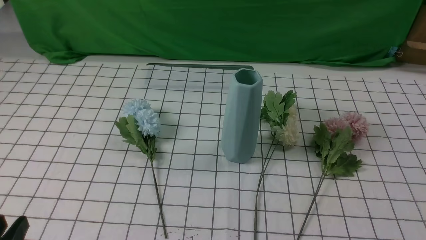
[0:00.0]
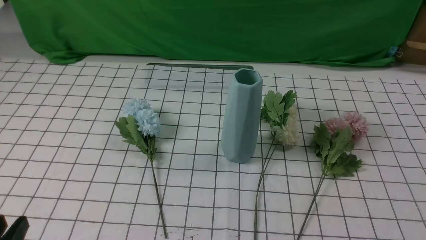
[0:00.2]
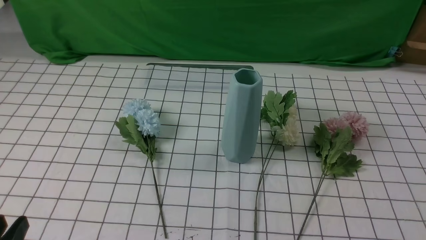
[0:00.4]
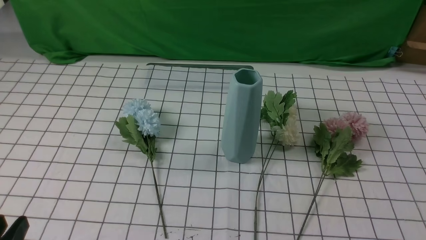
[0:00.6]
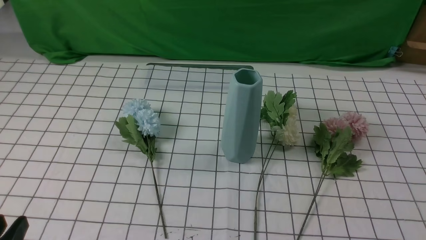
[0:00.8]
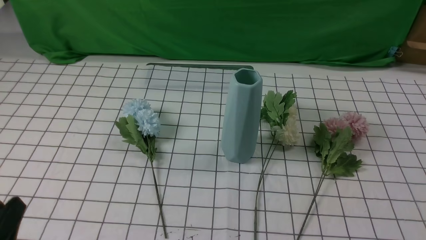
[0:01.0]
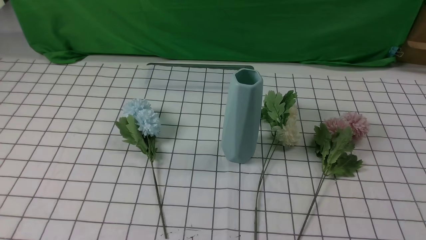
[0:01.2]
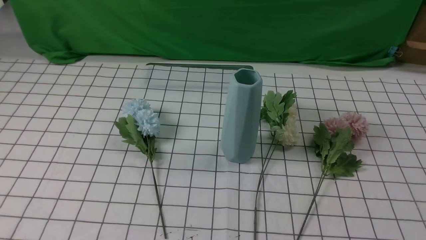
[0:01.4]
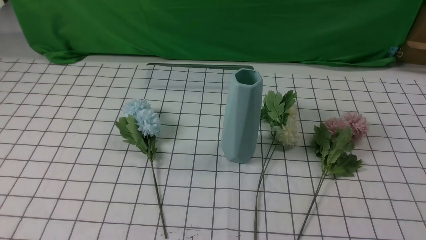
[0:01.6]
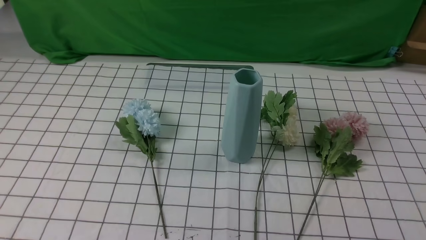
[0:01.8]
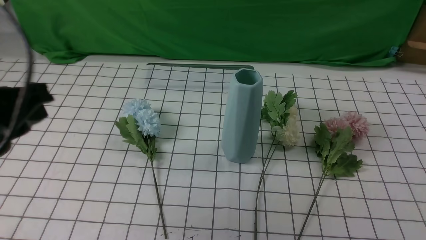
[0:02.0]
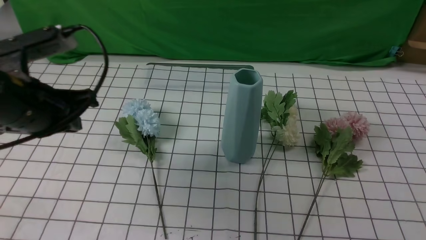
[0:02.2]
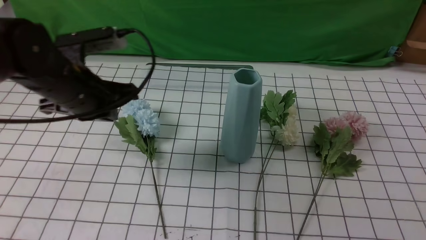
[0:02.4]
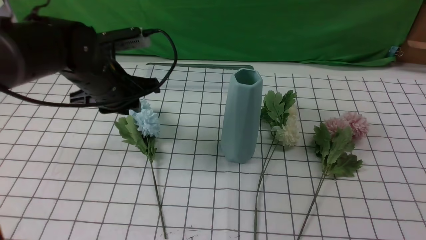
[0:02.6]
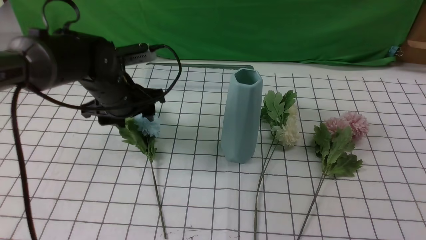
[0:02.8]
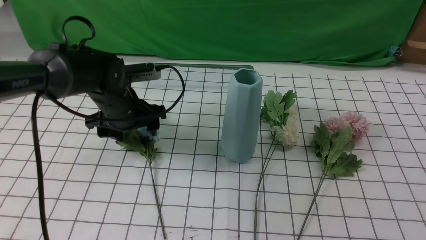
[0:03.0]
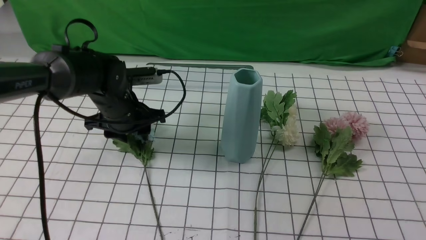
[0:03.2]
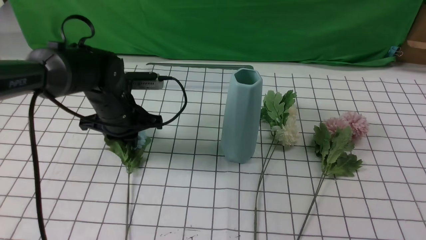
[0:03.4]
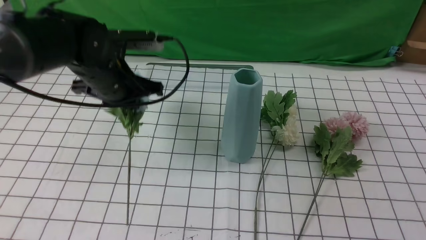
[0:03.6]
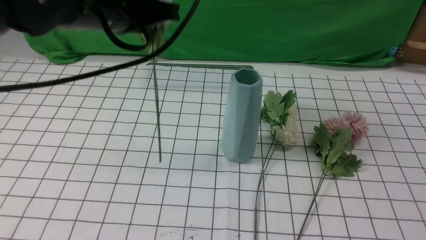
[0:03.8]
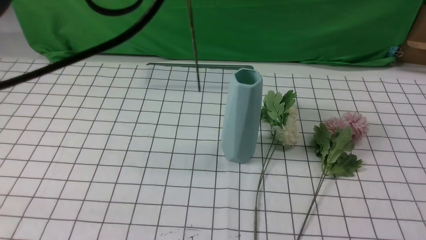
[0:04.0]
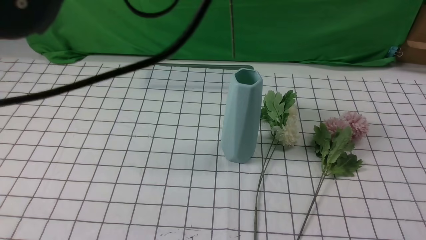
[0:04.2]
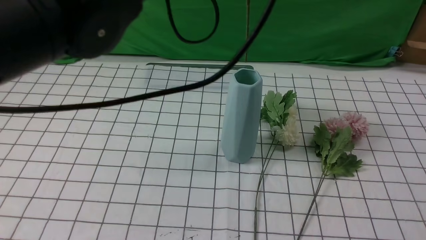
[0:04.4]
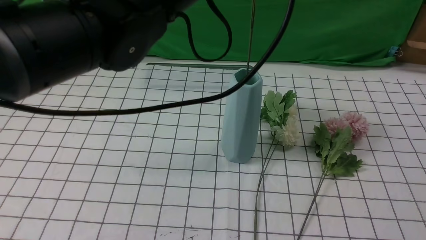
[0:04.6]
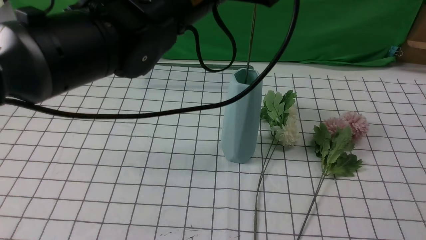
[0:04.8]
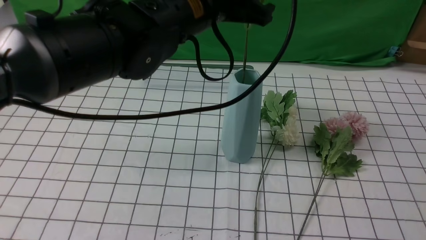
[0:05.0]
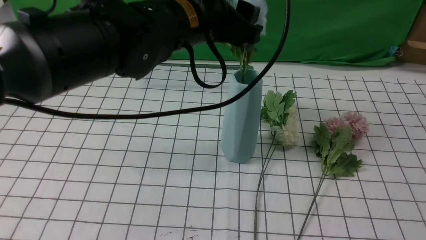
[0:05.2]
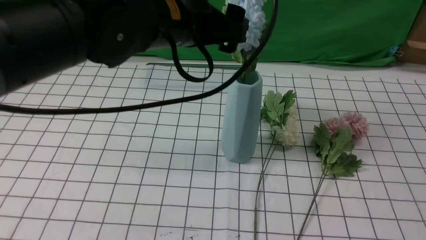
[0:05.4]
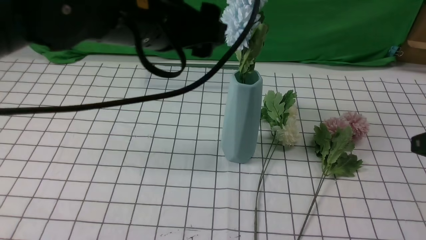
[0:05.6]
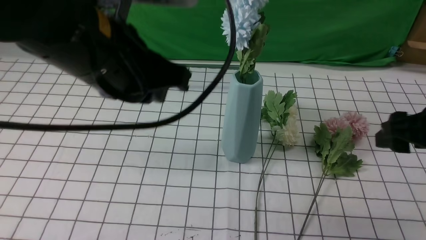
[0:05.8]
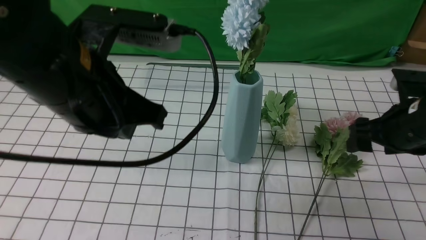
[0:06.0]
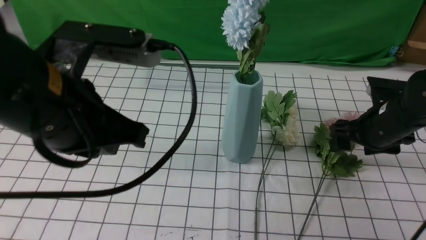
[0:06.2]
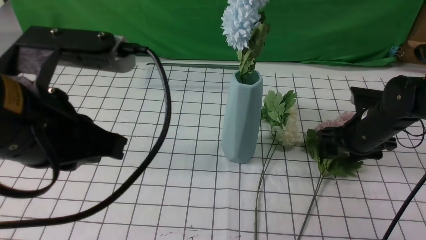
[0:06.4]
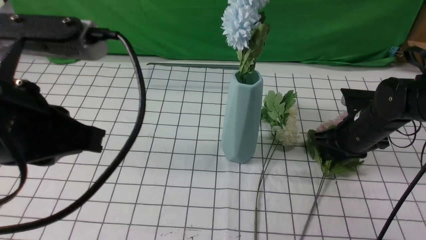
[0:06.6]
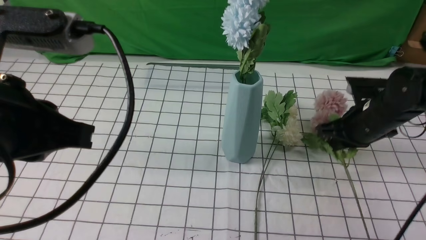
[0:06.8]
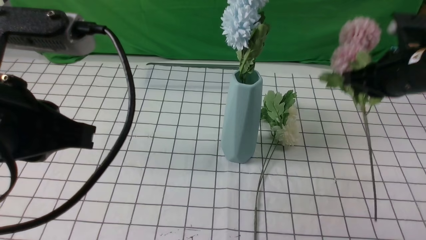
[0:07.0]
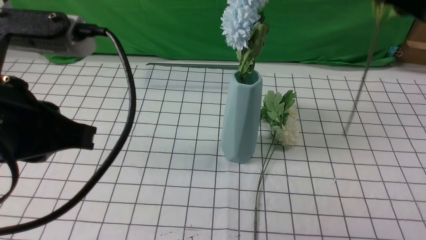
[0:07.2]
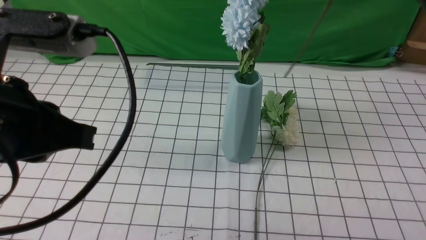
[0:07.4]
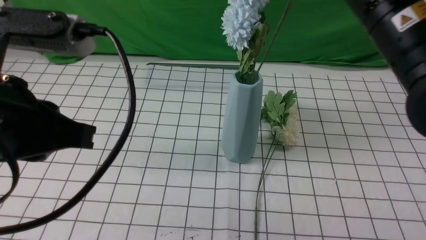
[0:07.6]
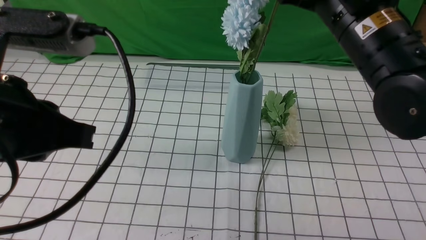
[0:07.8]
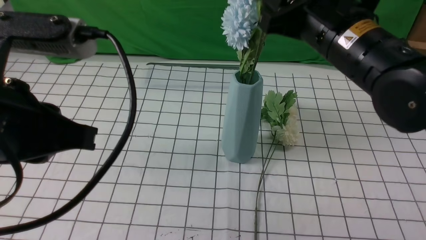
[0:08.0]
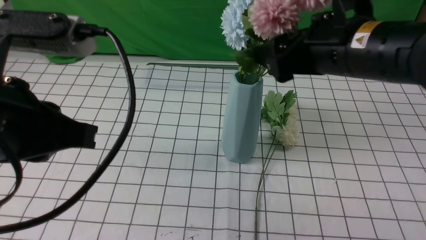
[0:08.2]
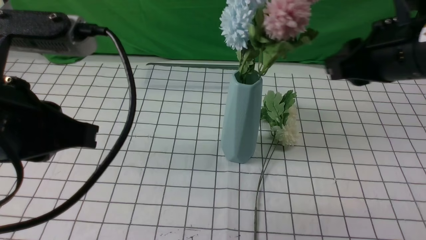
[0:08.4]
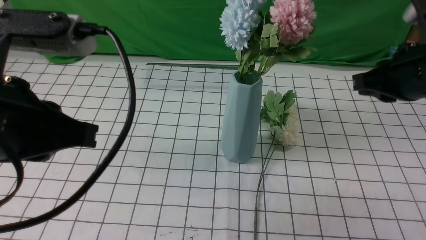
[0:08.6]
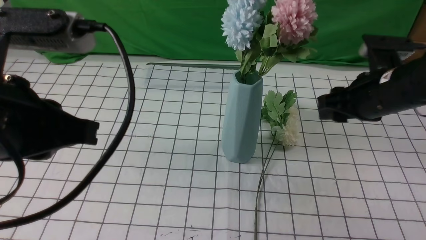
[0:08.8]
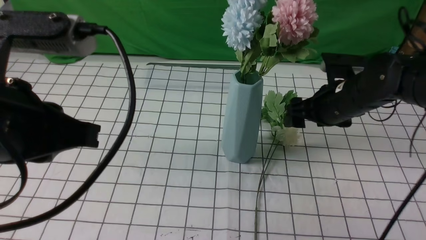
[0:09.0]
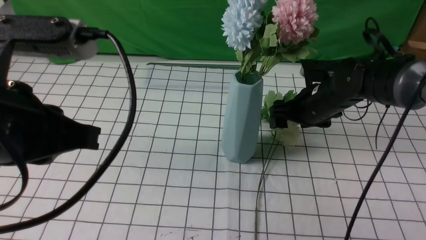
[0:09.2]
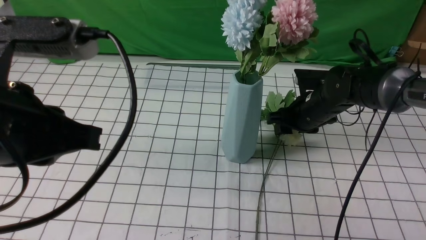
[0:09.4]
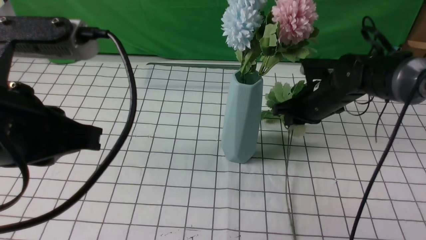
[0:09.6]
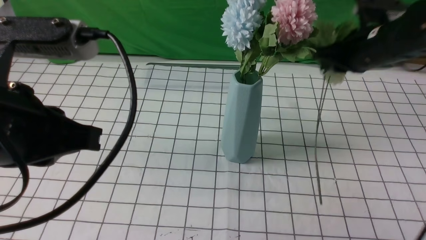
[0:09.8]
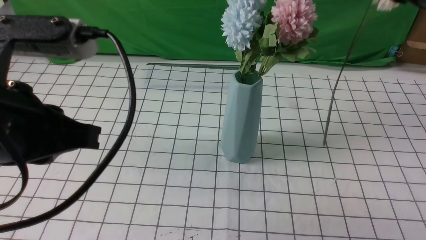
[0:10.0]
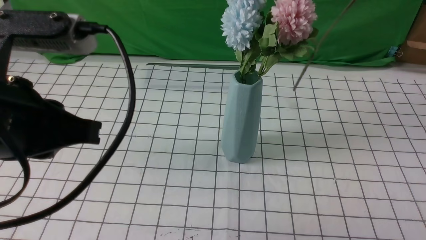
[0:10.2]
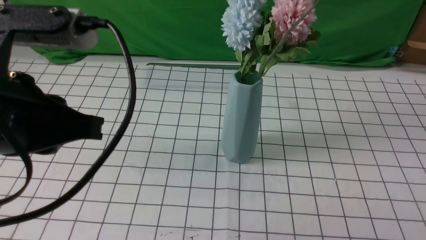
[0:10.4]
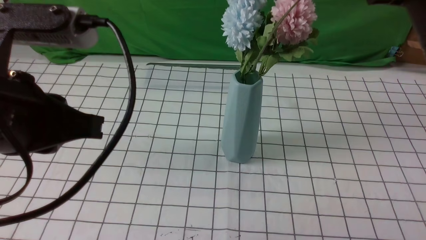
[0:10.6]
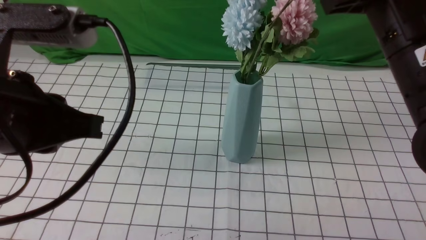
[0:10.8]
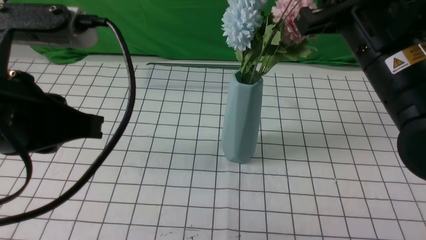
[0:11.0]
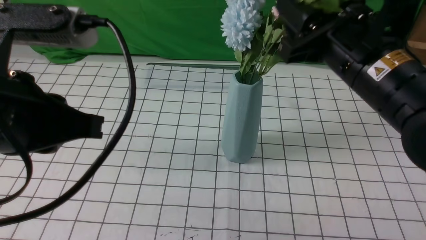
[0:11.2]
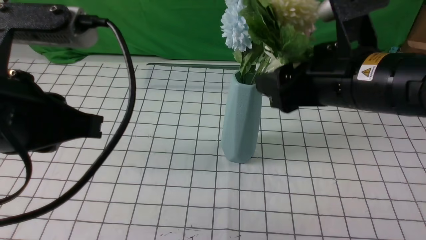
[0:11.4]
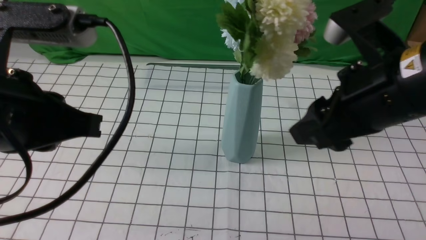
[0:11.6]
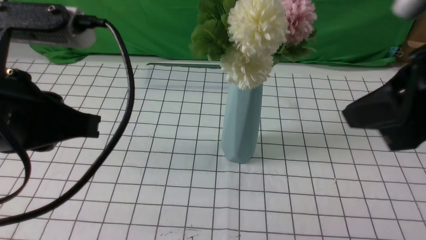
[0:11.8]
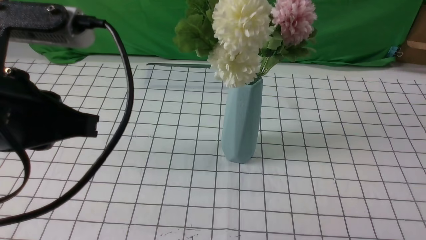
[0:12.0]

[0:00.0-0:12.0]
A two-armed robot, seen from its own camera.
Task of the whole recording: insert the flowers into the vase on the table with the white tablecloth.
Step, 0:00.0 to 0:03.4: use the left arm to grab a bunch of fresh flowers.
Step, 0:03.6 to 0:05.4: use the left arm to insert the flowers into the vase.
Step, 0:05.8 to 0:06.6: use the right arm to grab a bunch of fresh flowers.
Step, 0:06.8 to 0:08.2: use the right arm to insert the flowers into the vase.
Step, 0:08.6 to 0:09.4: use the right arm to grab a bunch of fresh flowers.
Step, 0:09.8 to 0:11.4: use the right arm to insert the flowers into the vase.
0:01.6 to 0:03.0: The left gripper shifts roughly 35 cm forward, and opens up. Meanwhile the right gripper goes approximately 10 cm upward and forward.
0:03.0 to 0:04.4: The left gripper moves upward and to the right, some 30 cm, and closes its fingers.
0:04.4 to 0:06.0: The left gripper shifts some 15 cm backward, downward and to the left, and opens and closes again. The right gripper goes about 20 cm forward and downward, and opens.
0:06.0 to 0:07.6: The right gripper shifts about 20 cm upward and to the left, and closes its fingers. Meanwhile the left gripper heads backward and to the left, covering about 10 cm.
0:07.6 to 0:09.0: The right gripper heads downward and forward, covering approximately 20 cm, and opens.
0:09.0 to 0:10.4: The right gripper shifts approximately 25 cm upward and backward, and closes up.
0:10.4 to 0:12.0: The right gripper travels backward by approximately 10 cm, and opens and closes again.

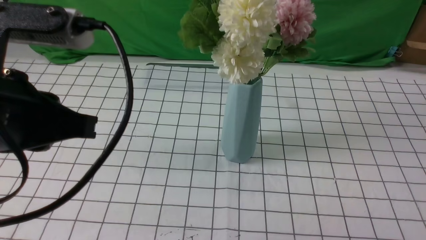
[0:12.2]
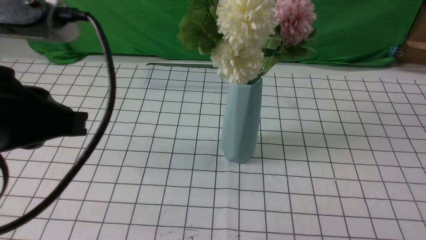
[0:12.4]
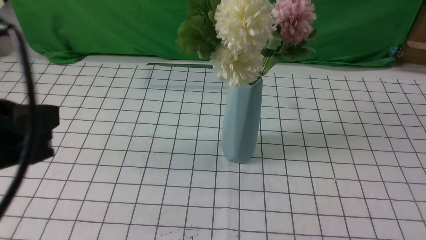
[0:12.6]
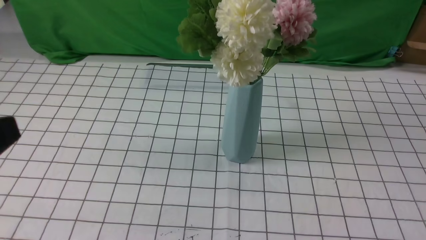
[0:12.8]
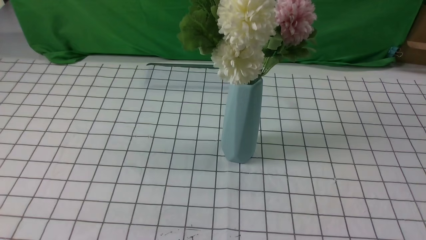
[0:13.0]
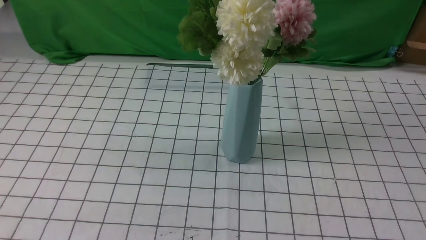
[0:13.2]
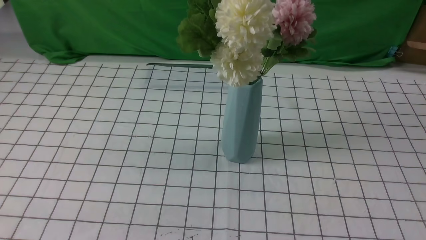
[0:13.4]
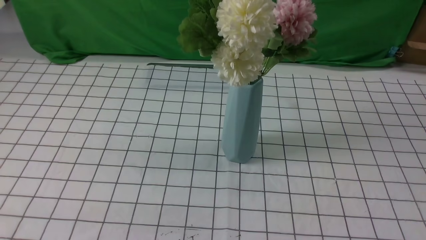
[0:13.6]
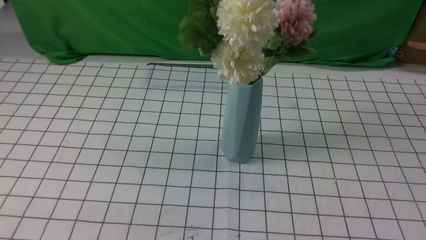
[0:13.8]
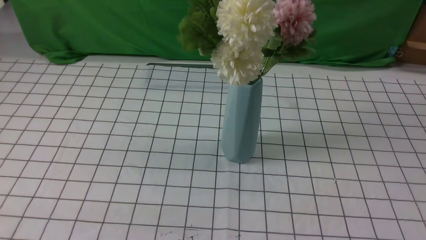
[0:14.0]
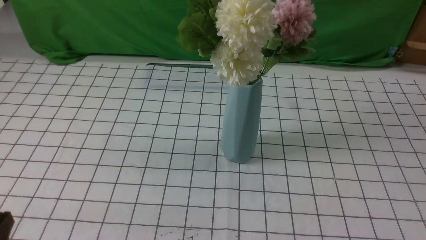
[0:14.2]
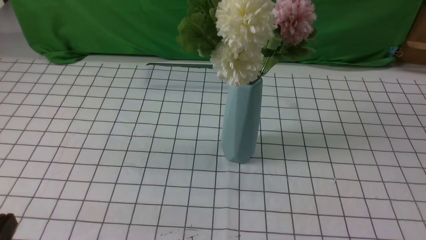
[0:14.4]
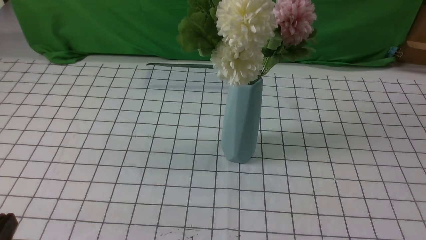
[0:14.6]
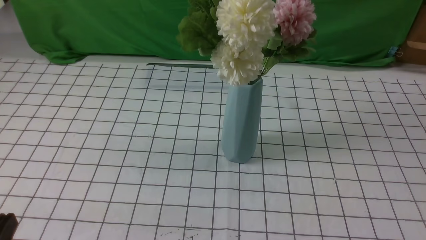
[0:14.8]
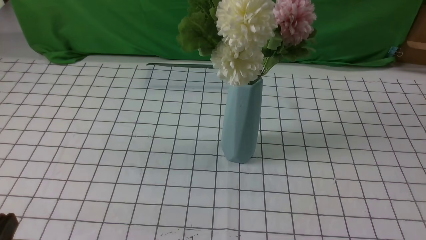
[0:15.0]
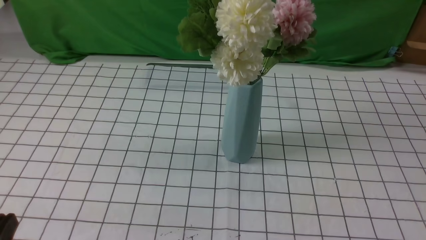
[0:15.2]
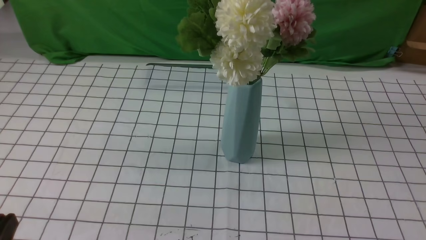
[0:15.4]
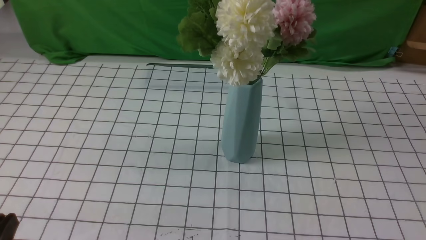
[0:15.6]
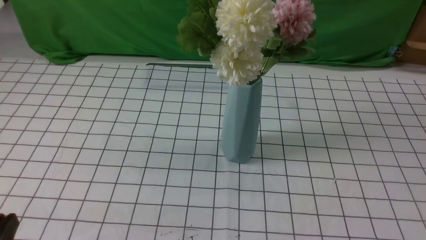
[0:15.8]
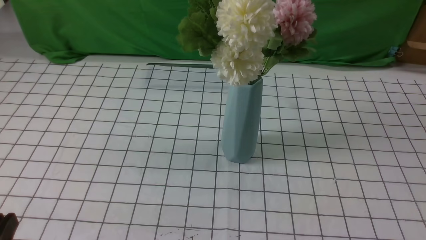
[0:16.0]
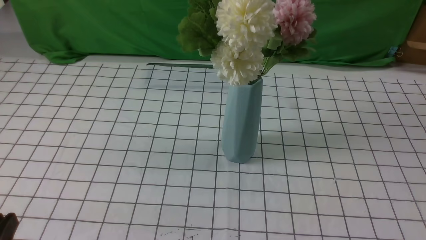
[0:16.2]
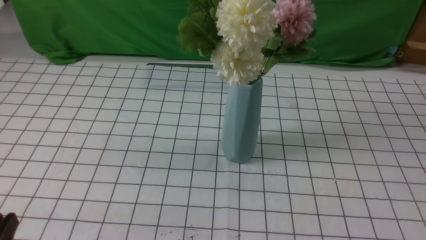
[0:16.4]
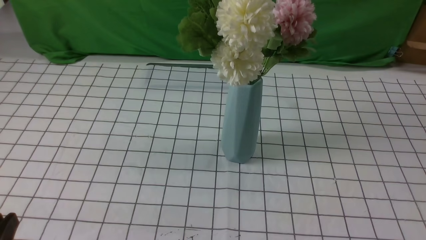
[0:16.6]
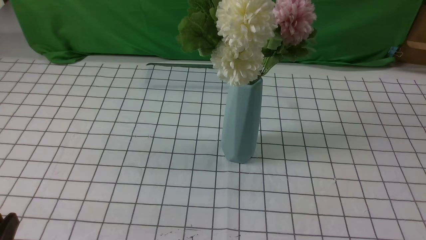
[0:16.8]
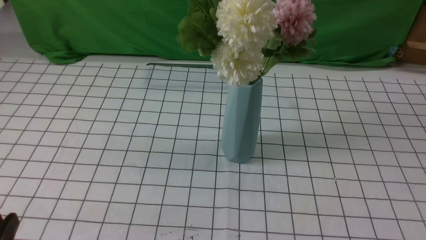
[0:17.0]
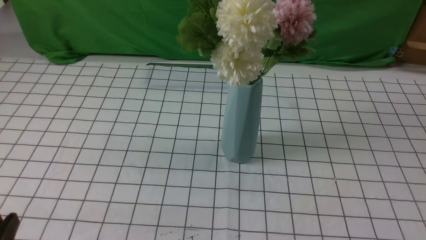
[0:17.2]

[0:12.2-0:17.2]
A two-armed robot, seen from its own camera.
Task of the whole recording: insert the flowers into the vase on the table with the white tablecloth.
0:12.2 to 0:13.8: The right gripper shifts some 5 cm downward; the left gripper goes about 15 cm backward, downward and to the left.
